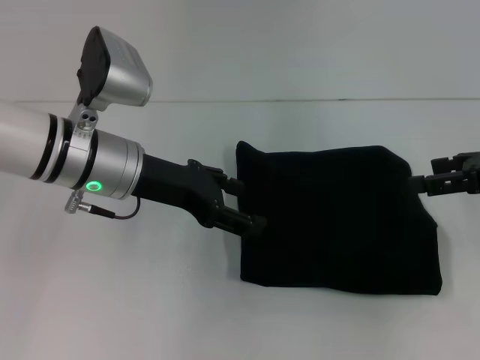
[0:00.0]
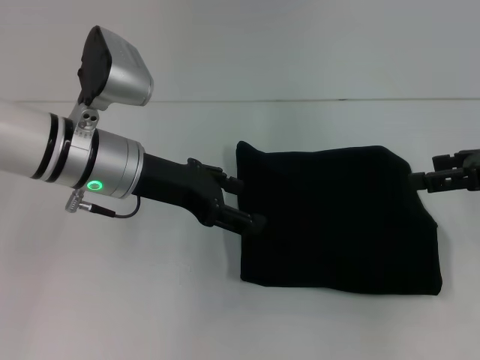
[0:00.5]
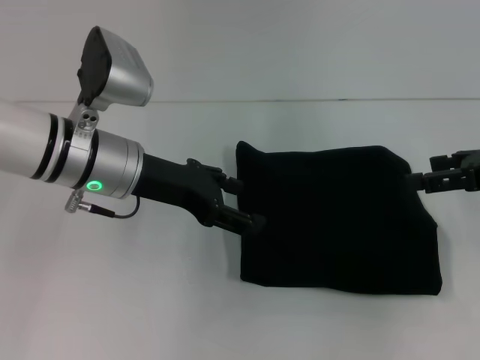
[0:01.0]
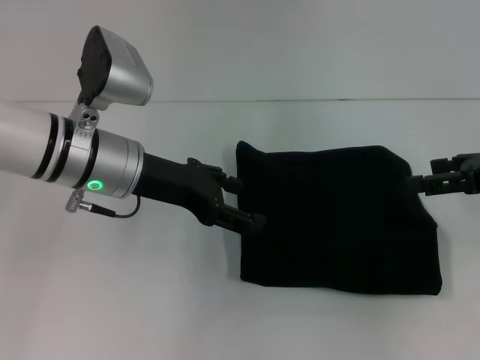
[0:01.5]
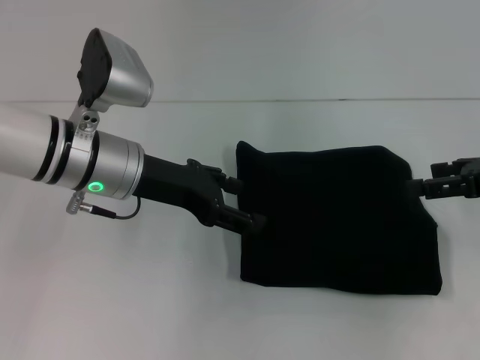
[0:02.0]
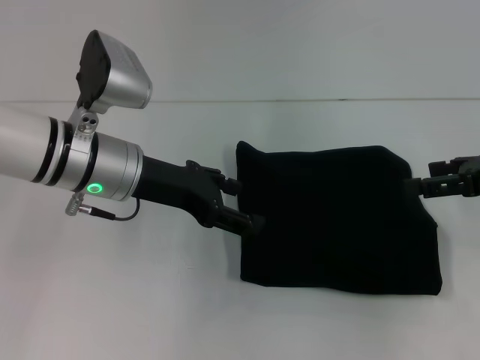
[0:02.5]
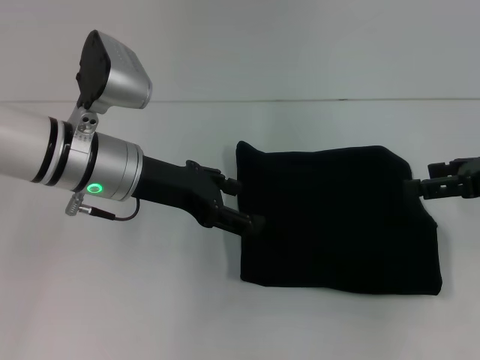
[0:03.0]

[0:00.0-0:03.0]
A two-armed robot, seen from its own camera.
0:00.0 to 0:03.0: The two grippers keep their place.

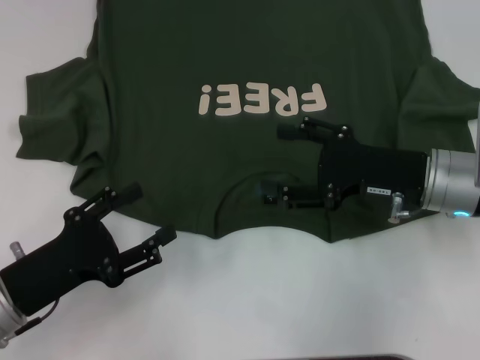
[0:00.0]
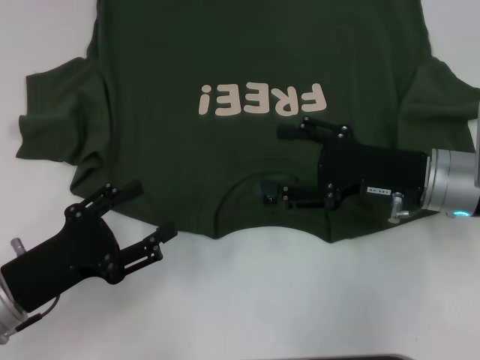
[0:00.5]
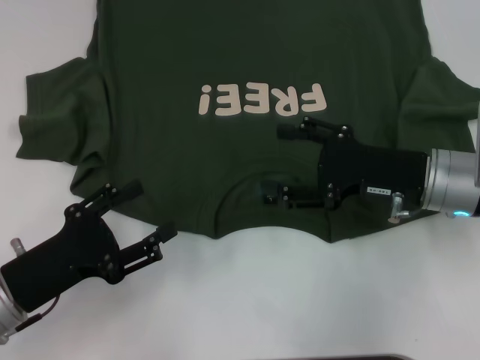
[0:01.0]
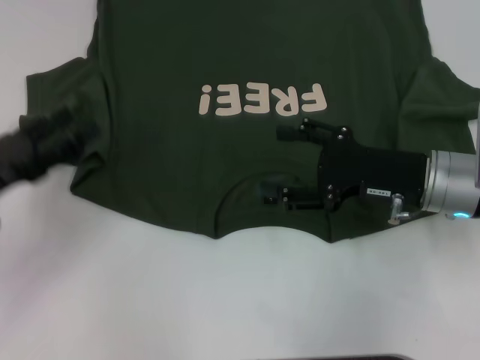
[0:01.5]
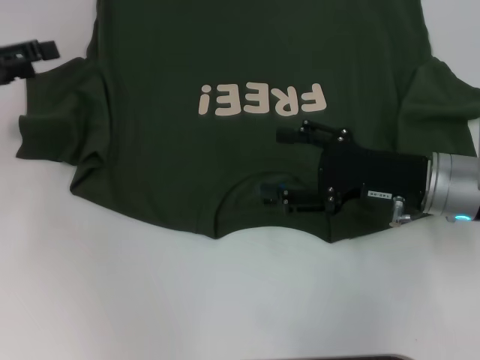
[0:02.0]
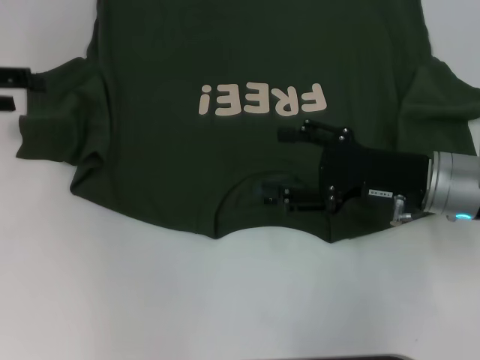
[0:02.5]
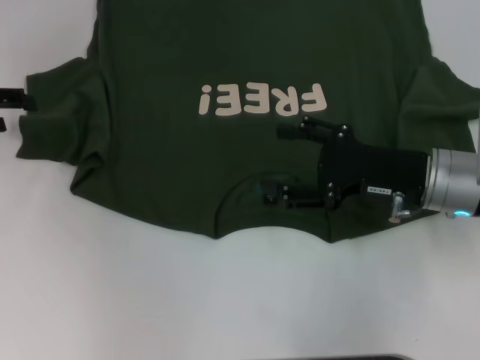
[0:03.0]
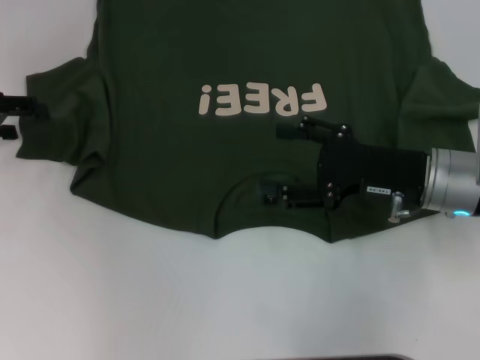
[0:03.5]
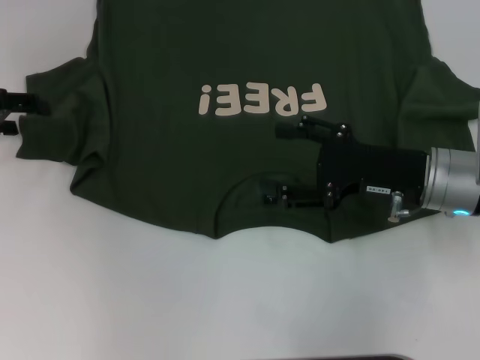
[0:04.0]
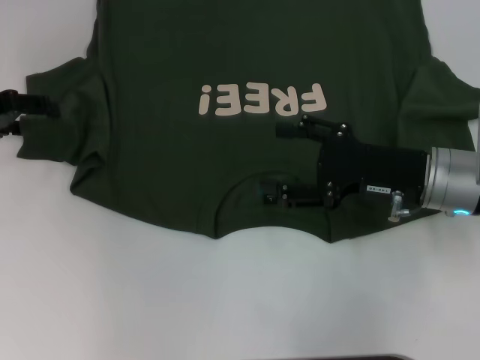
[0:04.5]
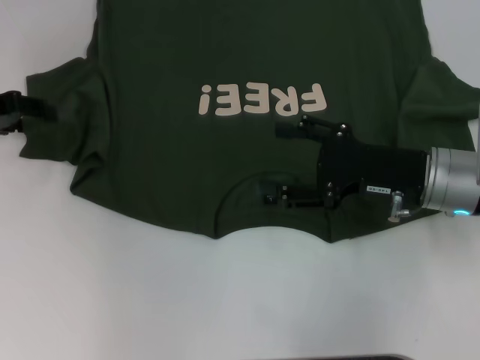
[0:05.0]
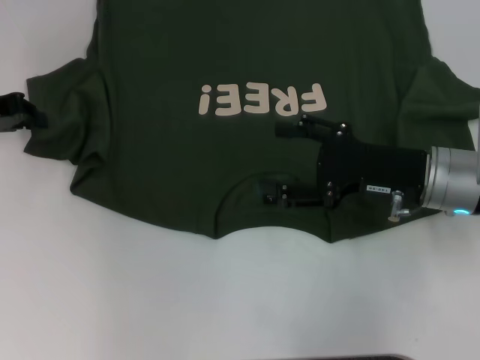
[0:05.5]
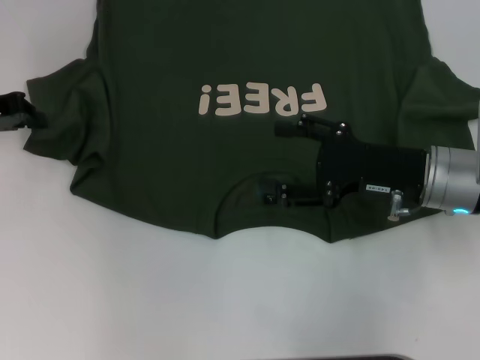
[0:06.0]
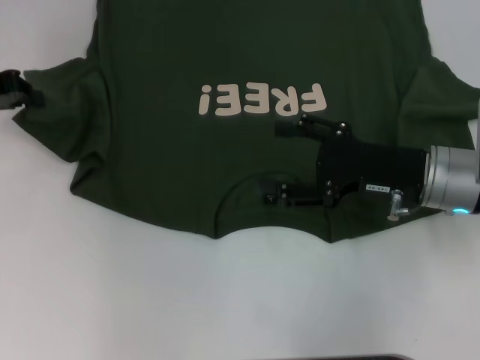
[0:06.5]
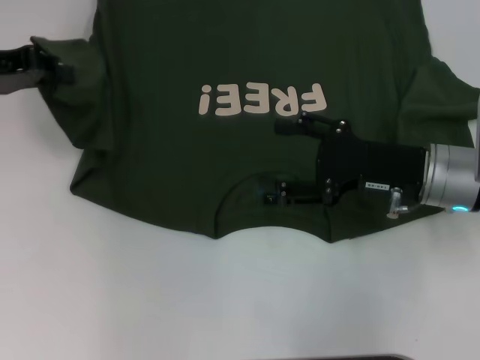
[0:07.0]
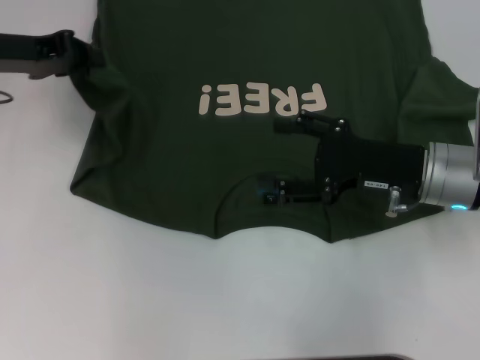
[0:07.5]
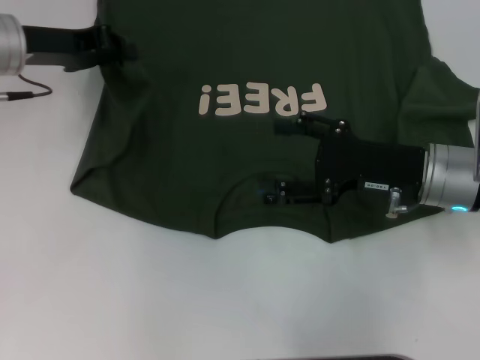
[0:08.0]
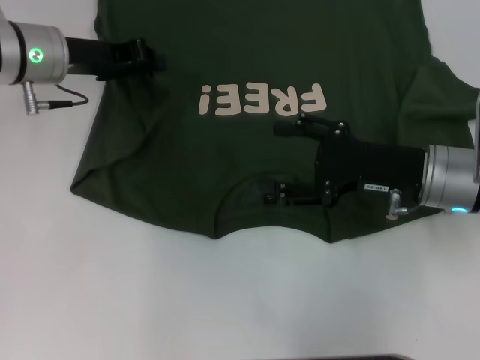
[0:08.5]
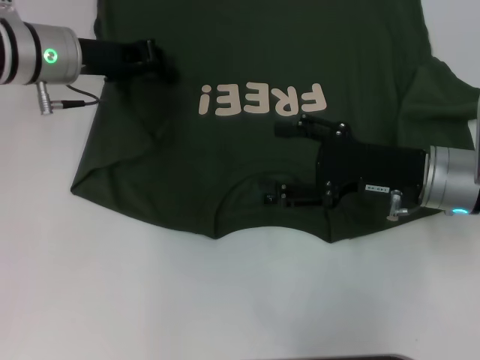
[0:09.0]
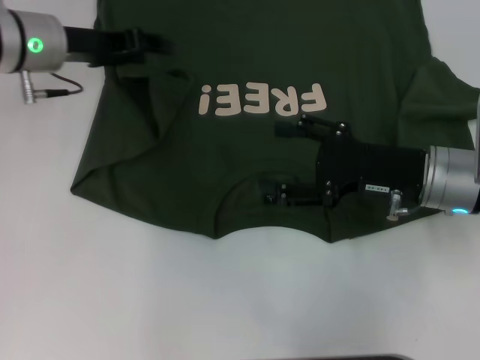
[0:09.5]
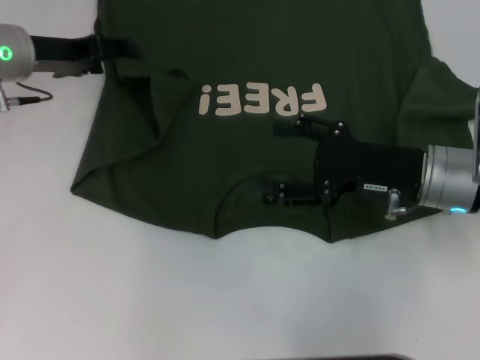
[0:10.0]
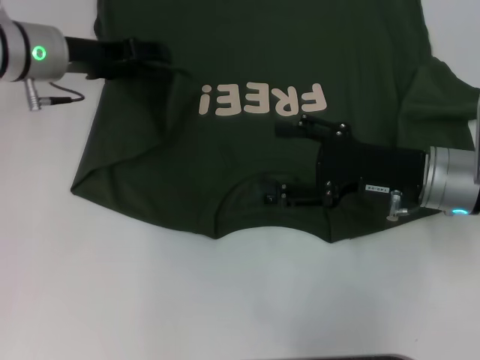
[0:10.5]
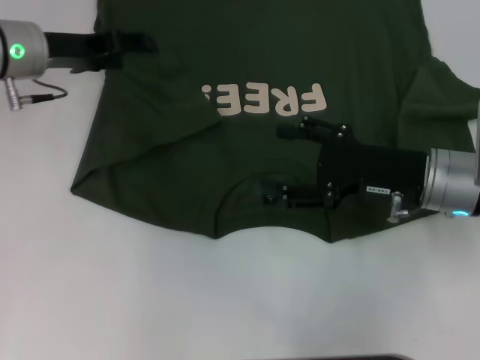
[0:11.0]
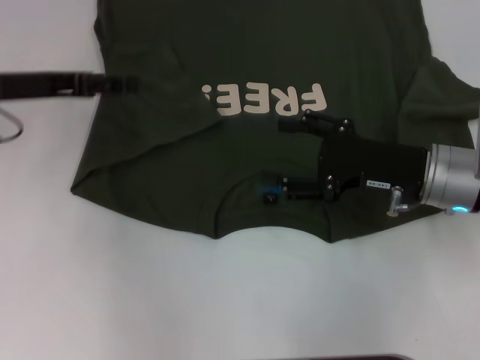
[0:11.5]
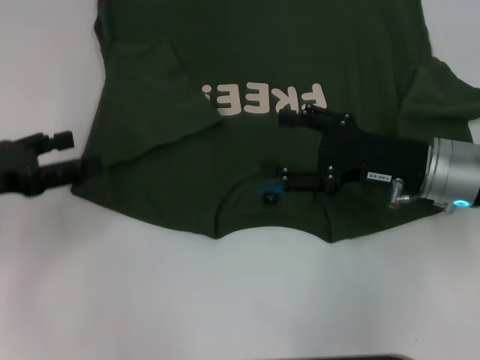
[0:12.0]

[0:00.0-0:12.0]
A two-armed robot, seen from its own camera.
Step, 0:00.0 to 0:10.5: Fold the bottom left sleeve with your left hand.
0:00.0 to 0:02.0: The left gripper is displaced forward, upward and to the left by roughly 20 cm.
0:04.0 to 0:06.0: The left gripper closes up.
0:06.0 to 0:08.0: The left gripper moves to the right, some 10 cm.
0:08.0 to 0:10.0: The left gripper opens its fingers.
0:10.0 to 0:12.0: The left gripper heads backward and to the left, covering some 15 cm.

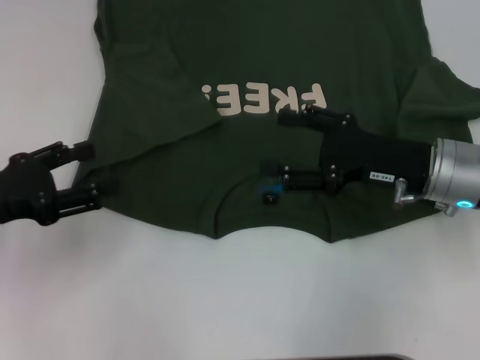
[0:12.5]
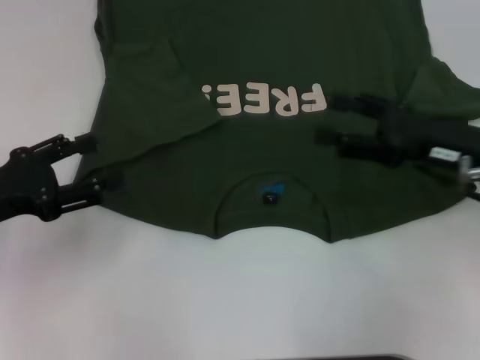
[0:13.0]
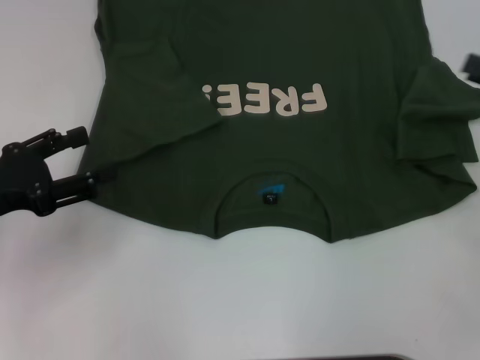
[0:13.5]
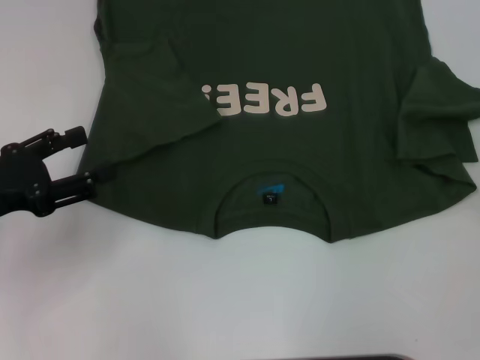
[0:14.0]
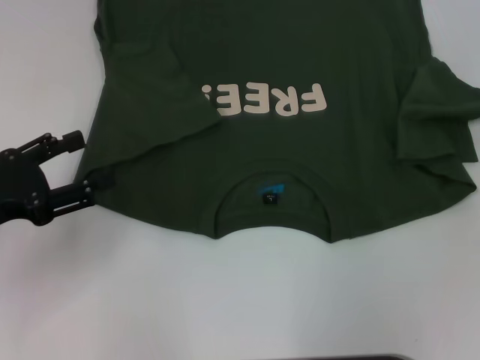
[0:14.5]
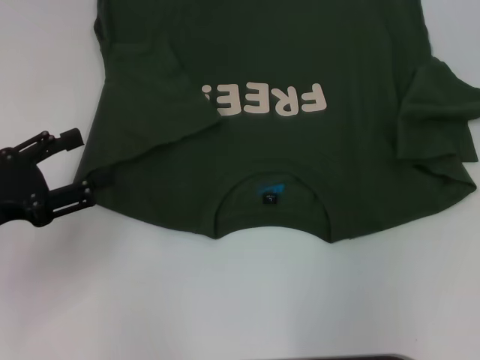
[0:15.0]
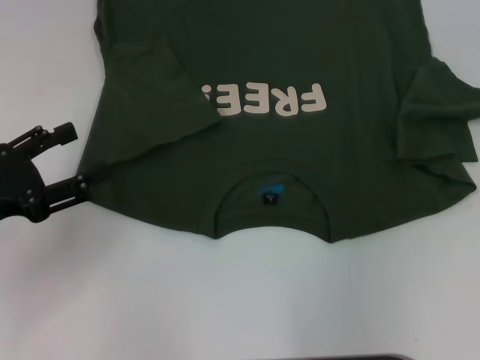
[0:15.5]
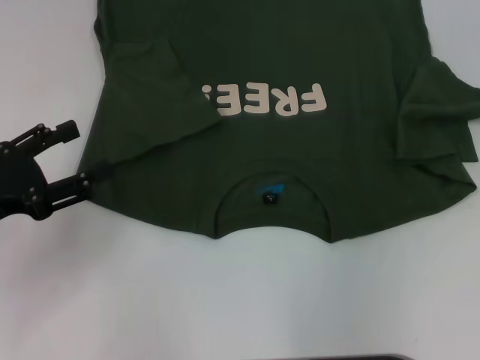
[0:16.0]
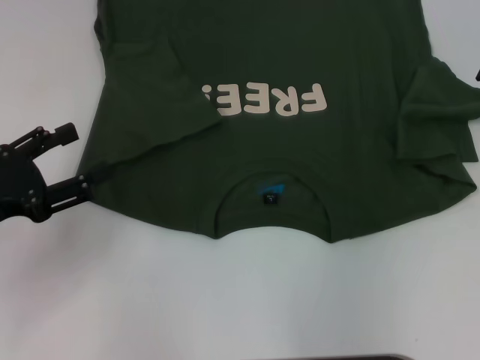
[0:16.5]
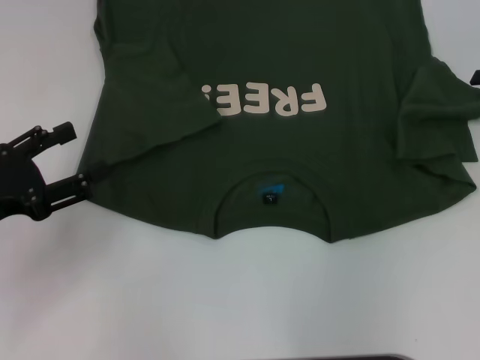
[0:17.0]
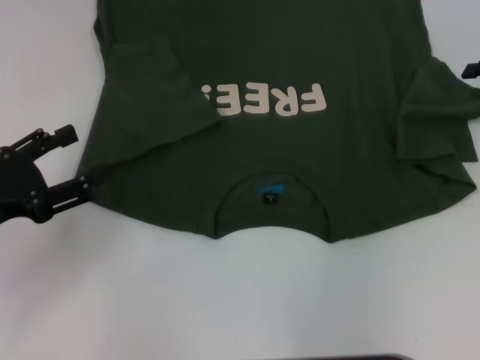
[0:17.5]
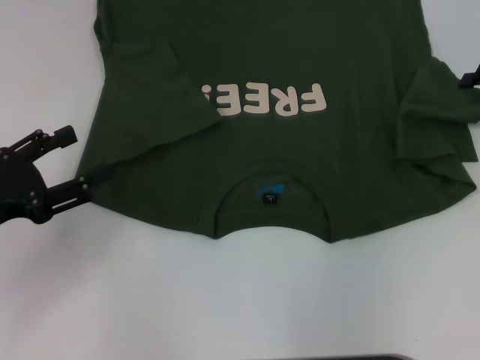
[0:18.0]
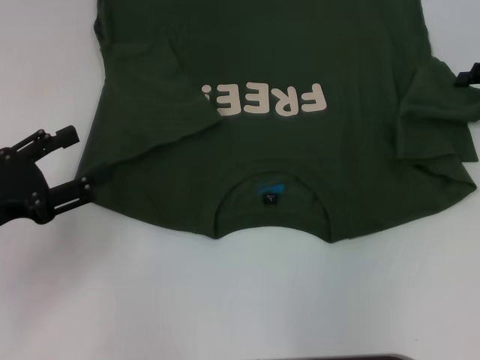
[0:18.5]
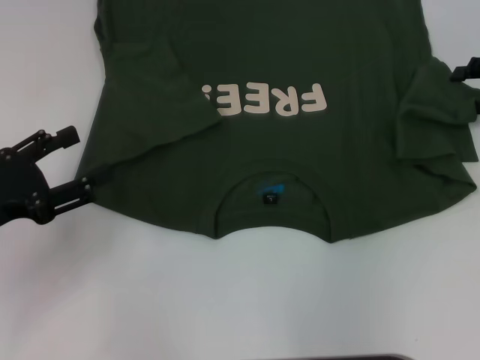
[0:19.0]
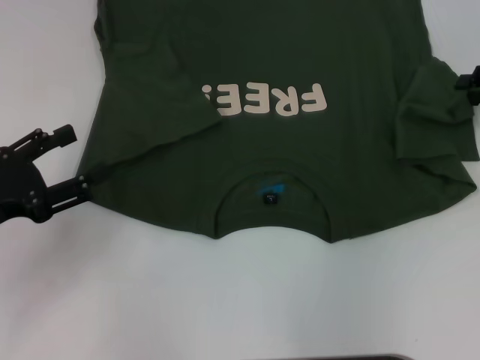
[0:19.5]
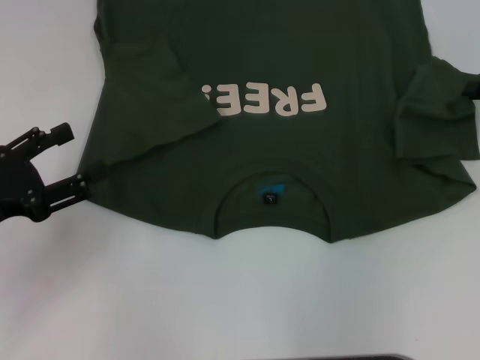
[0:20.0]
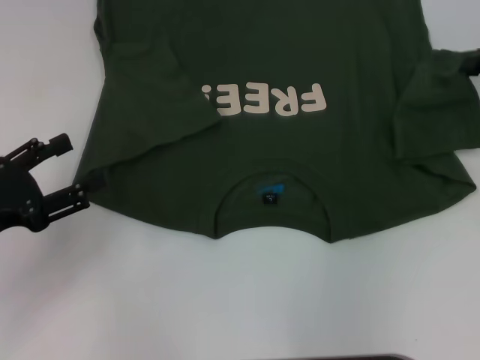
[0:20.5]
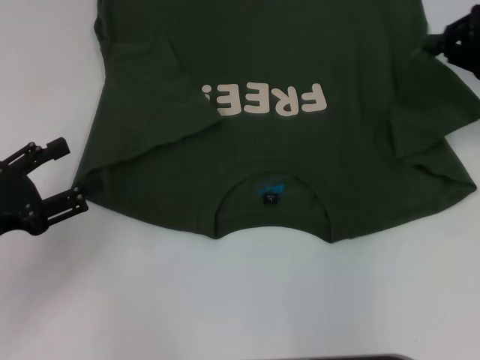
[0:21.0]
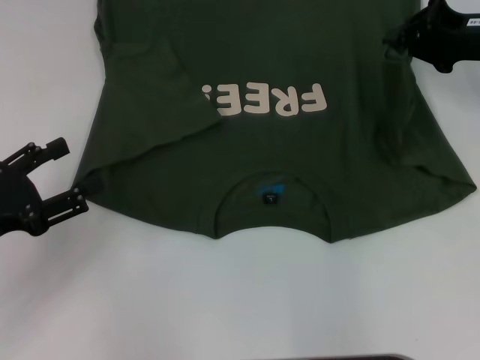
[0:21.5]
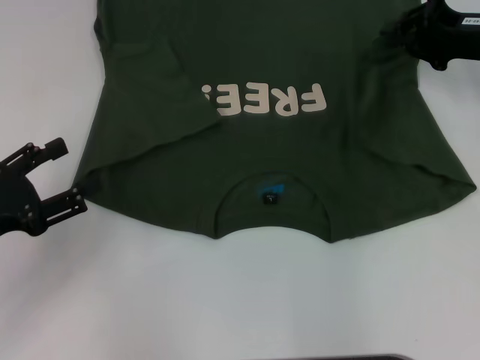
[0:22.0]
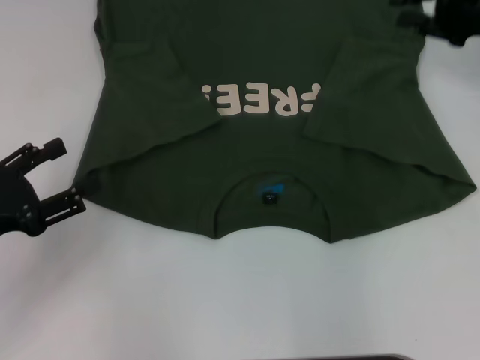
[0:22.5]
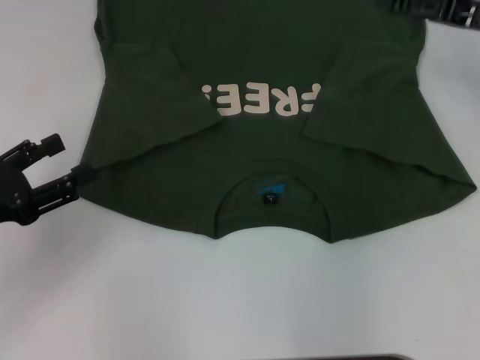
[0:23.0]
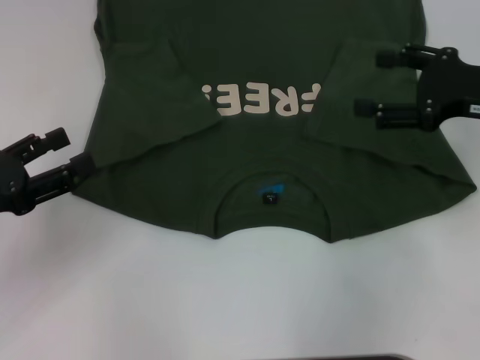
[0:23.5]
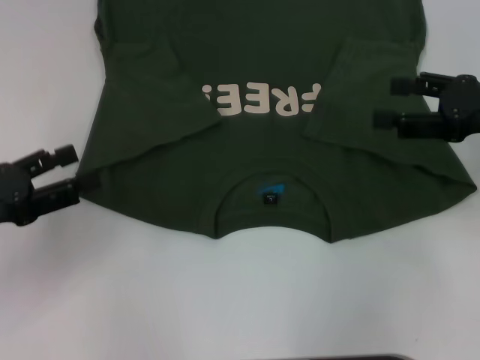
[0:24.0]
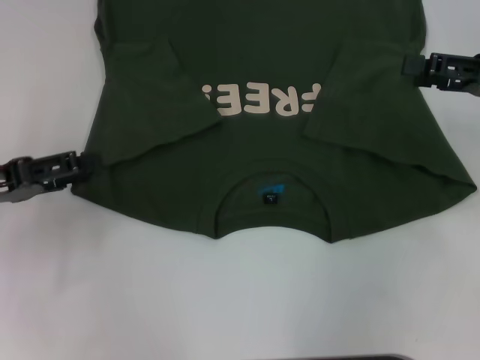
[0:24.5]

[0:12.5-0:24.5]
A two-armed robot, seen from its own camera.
Step, 0:12.5 to 0:22.0: Fold the bottom right sleeve with your right hand.
0:12.5 to 0:14.5: The right gripper goes some 20 cm to the right.
0:16.5 to 0:18.5: There are only small adjustments of the grippers.
0:18.5 to 0:20.5: The right gripper closes.
0:20.5 to 0:22.5: The right gripper travels to the left by roughly 5 cm, and opens its fingers.
0:22.5 to 0:24.5: The right gripper is displaced backward by approximately 10 cm, and opens its fingers. The left gripper heads forward, covering about 5 cm.
